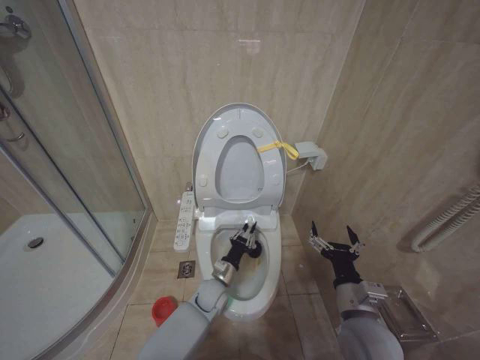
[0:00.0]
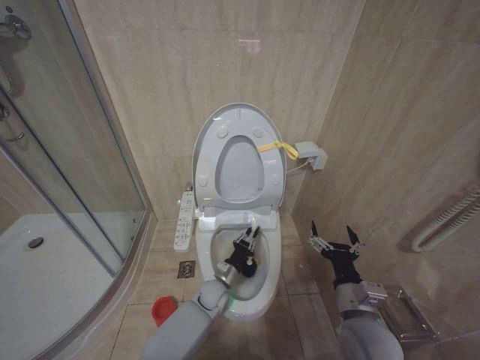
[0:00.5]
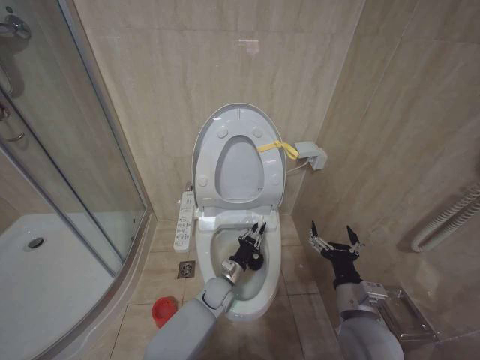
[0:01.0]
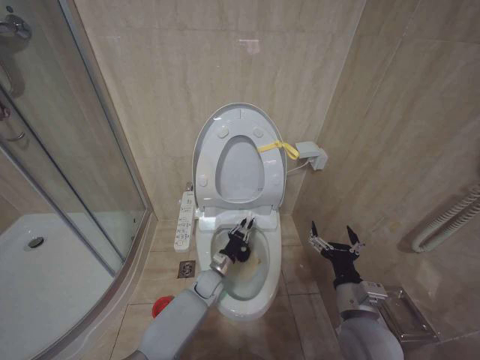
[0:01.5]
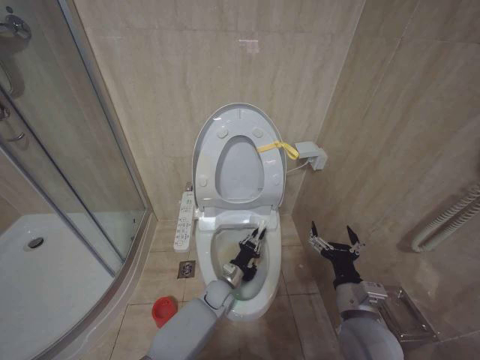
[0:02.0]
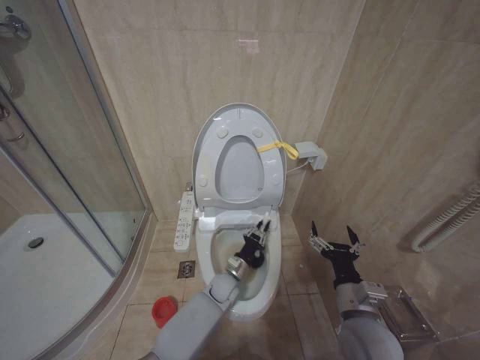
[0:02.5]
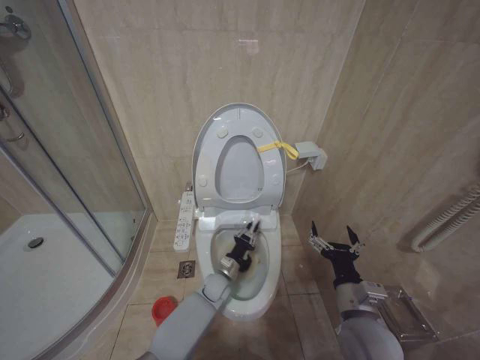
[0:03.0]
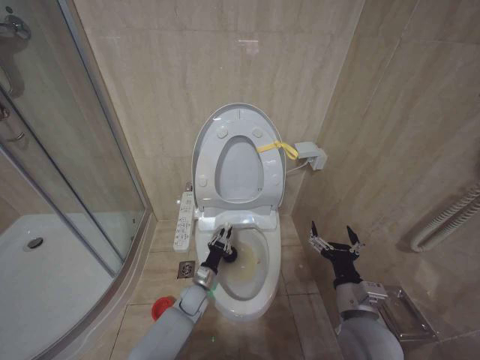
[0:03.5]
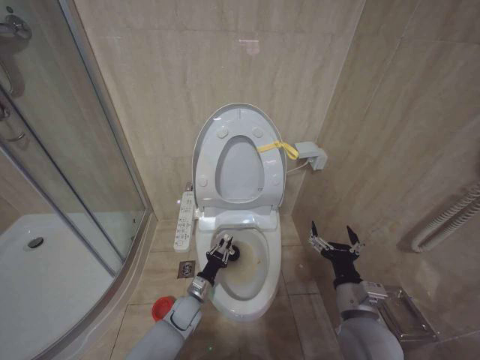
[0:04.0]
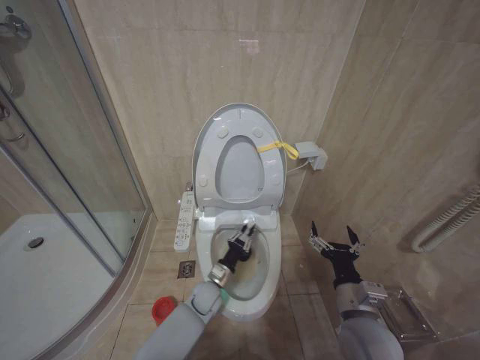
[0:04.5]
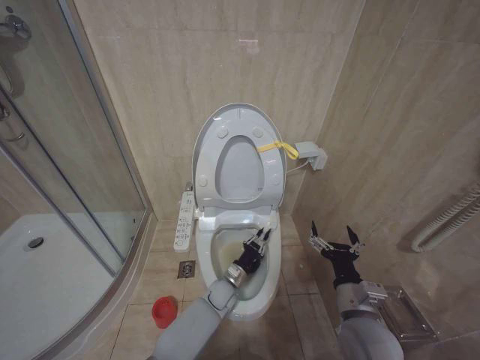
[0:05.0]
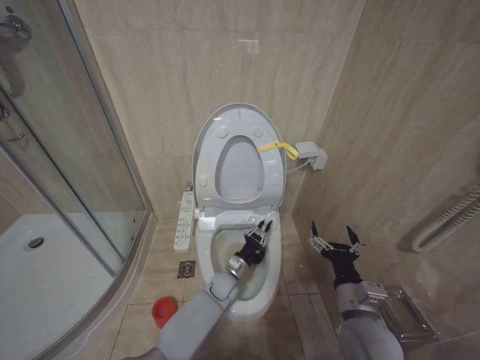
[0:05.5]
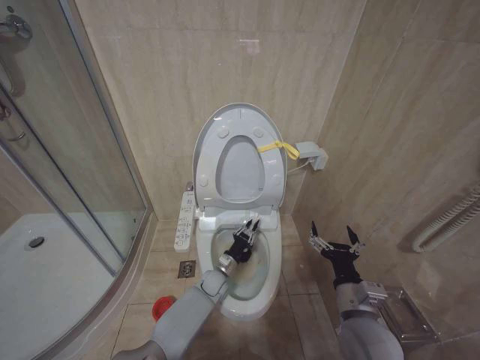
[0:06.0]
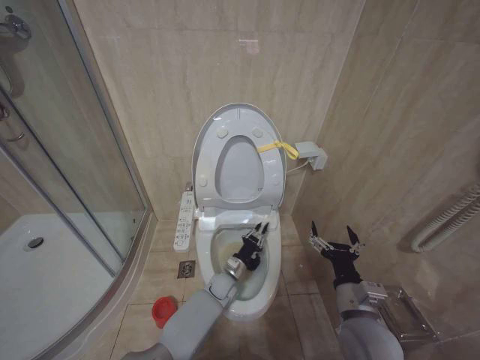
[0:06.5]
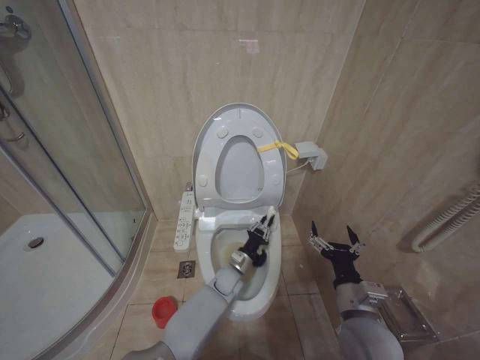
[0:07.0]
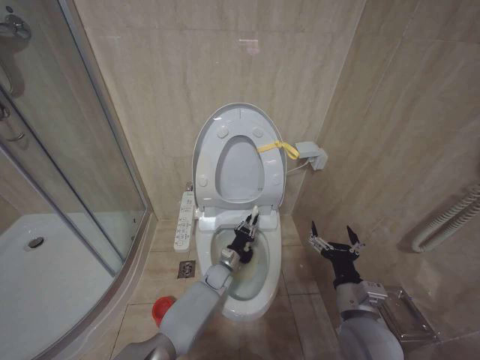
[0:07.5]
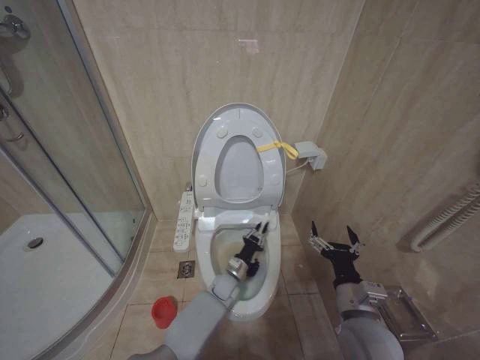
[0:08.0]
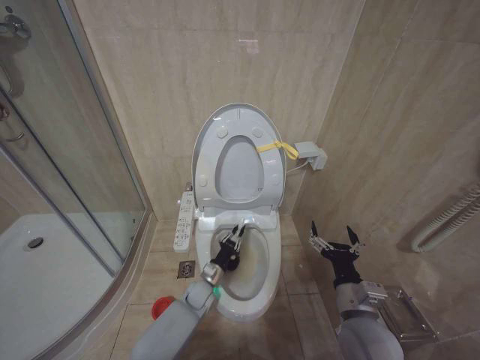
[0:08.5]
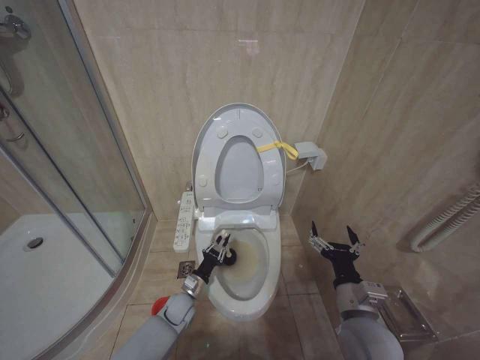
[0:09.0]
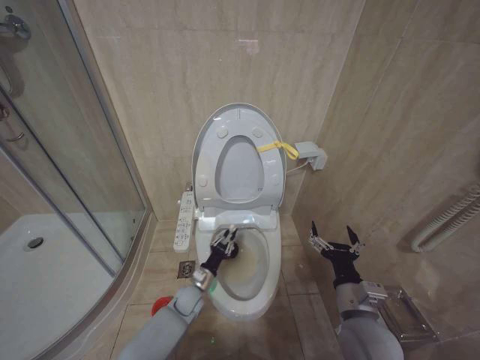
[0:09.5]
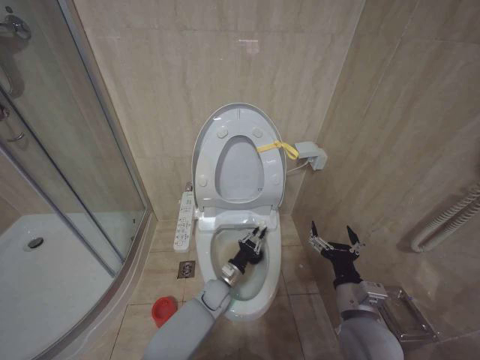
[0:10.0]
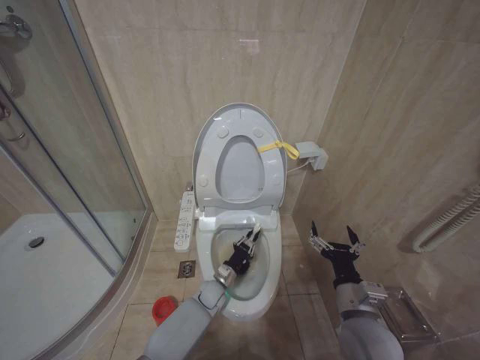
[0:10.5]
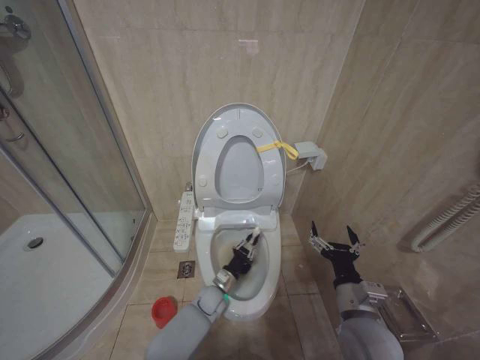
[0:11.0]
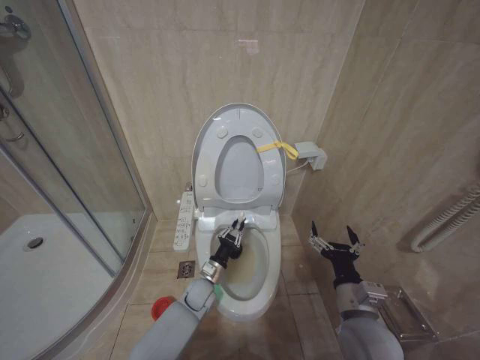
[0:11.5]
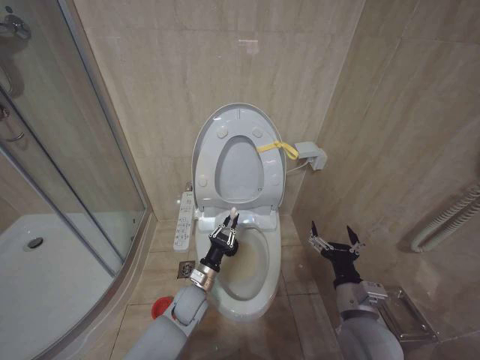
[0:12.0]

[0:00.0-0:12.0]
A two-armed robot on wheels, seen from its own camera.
Task of the whole recording: Open the toilet lid, clean the toilet bowl with a toilet brush, close the toilet lid, and flush.
0:00.0 to 0:02.0: The grippers make only small movements.
0:02.0 to 0:04.0: The left gripper goes about 10 cm to the left.
0:04.0 to 0:06.0: The left gripper heads to the right and forward, covering some 10 cm.
0:06.0 to 0:08.0: The left gripper moves some 5 cm.
0:08.0 to 0:10.0: The left gripper reaches approximately 15 cm to the left, then returns.
0:10.0 to 0:12.0: The left gripper shifts about 10 cm to the left and upward.

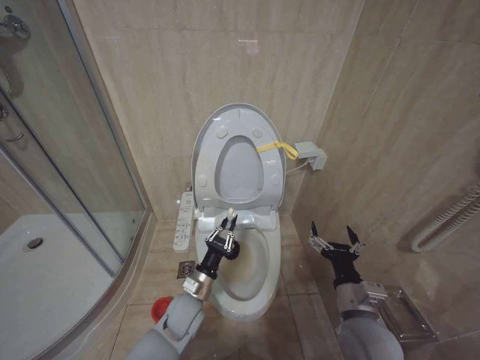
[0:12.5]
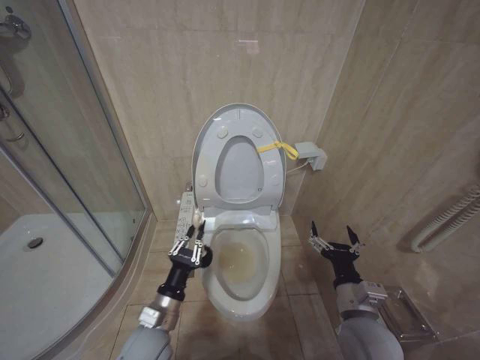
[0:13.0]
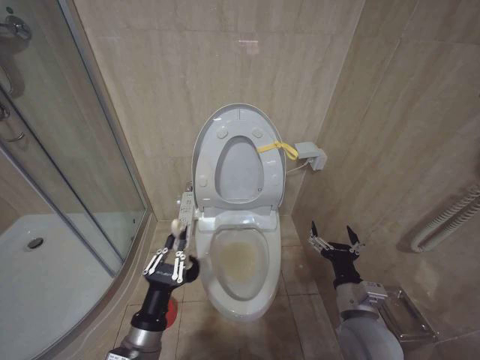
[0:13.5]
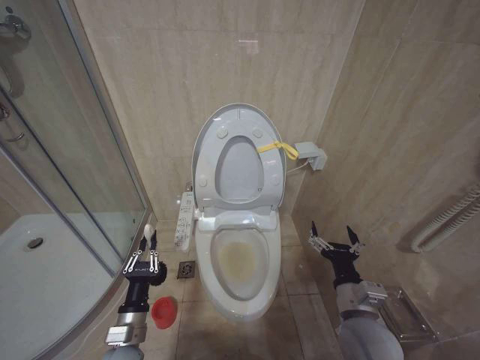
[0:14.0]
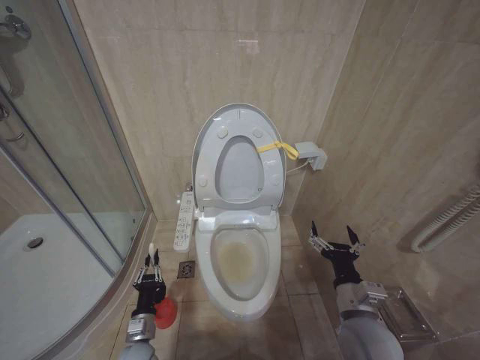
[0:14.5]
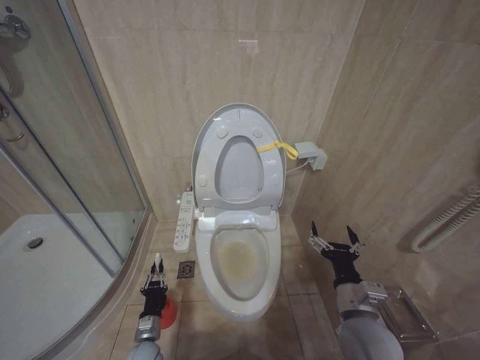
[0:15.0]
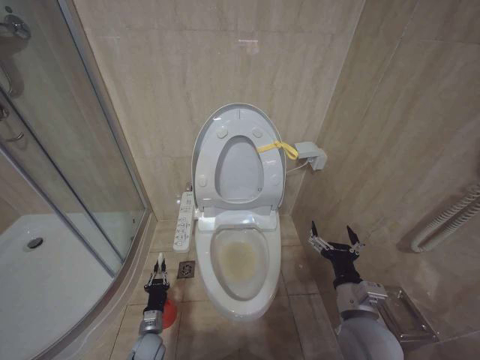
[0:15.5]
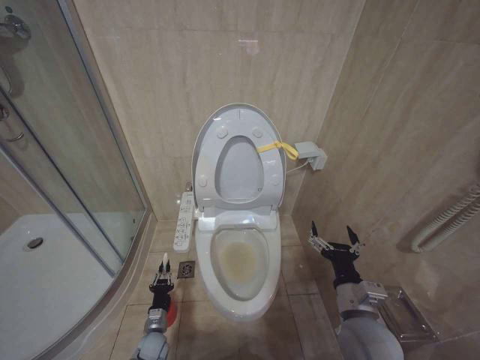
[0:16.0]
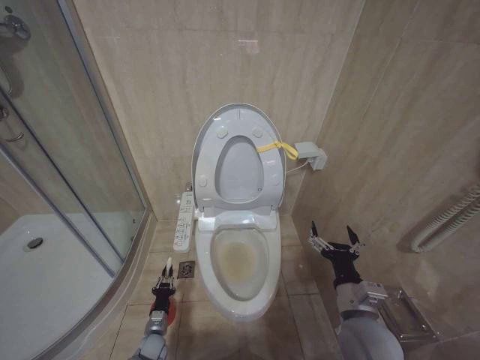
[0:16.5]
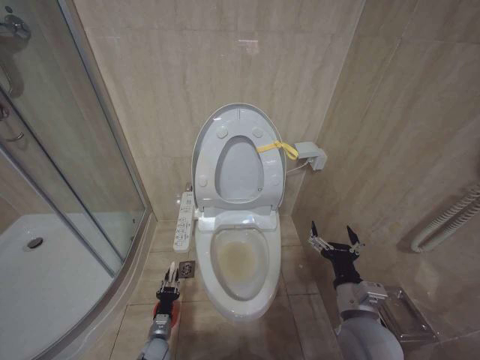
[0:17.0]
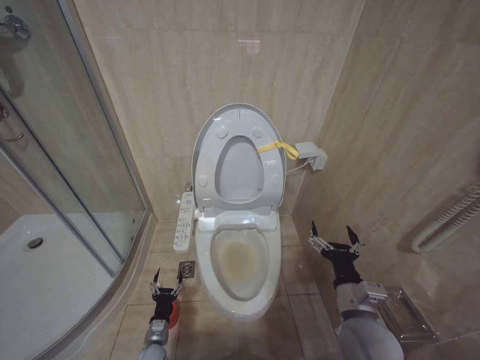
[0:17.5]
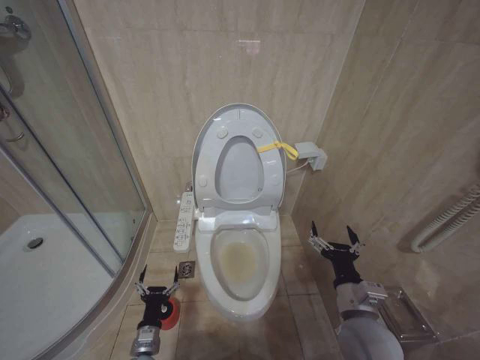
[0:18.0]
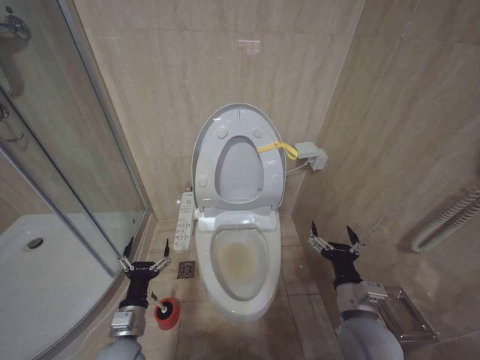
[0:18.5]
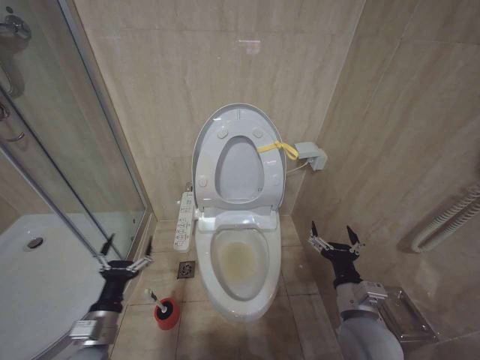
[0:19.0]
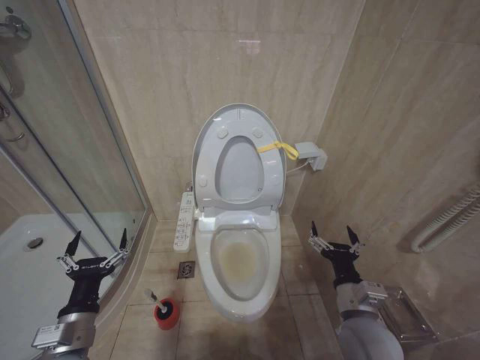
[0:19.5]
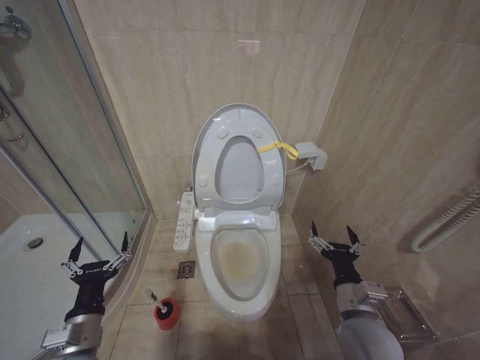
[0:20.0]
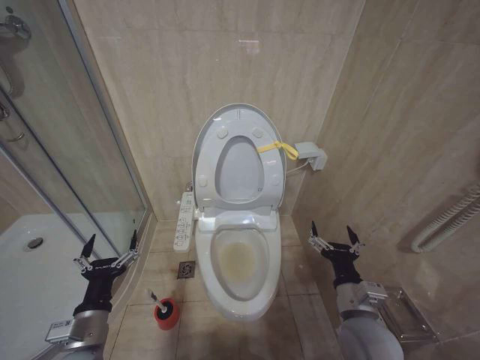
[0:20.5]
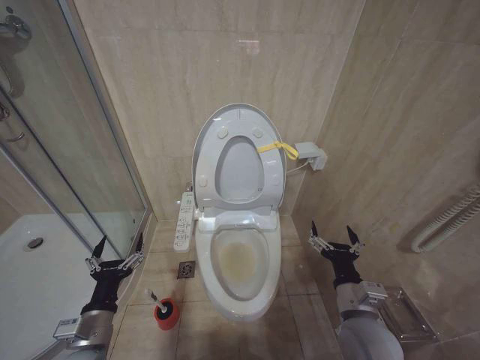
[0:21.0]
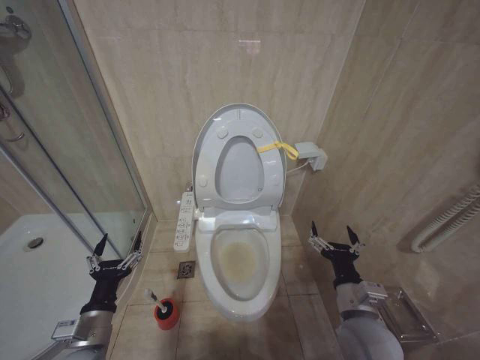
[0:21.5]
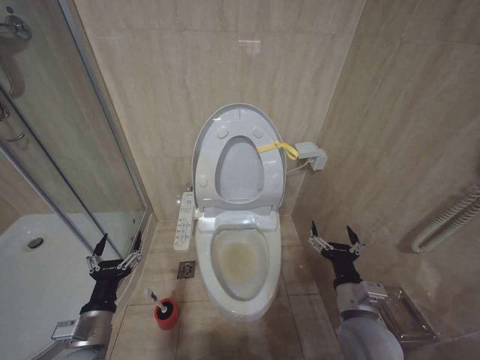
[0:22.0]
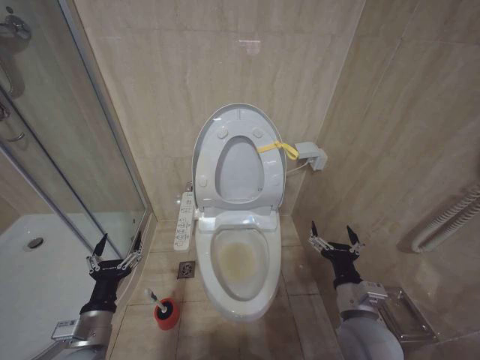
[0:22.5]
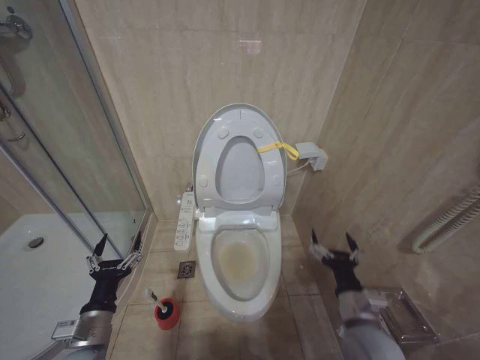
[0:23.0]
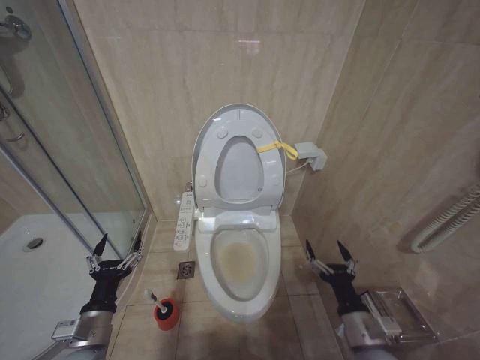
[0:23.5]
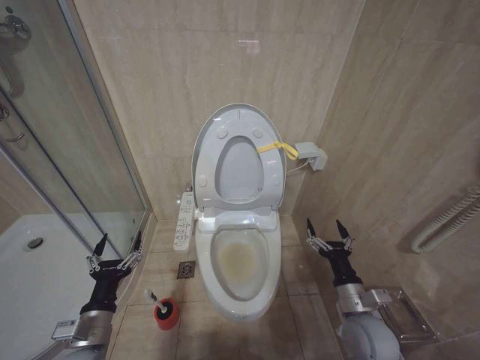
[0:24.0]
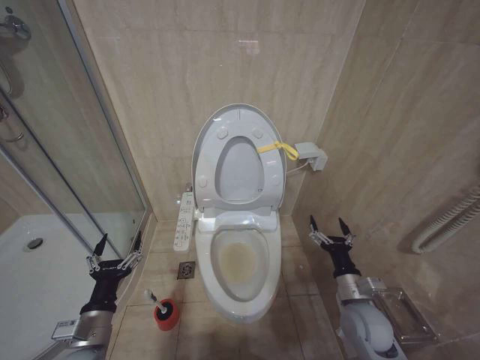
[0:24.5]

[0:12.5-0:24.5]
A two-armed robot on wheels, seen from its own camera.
Task of the whole recording: Open the toilet lid, clean the toilet bowl with a toilet brush, close the toilet lid, and flush.
0:12.5 to 0:14.5: The left gripper goes roughly 15 cm to the left, backward and downward.
0:14.5 to 0:16.5: The left gripper heads downward and forward, covering approximately 15 cm.
0:16.5 to 0:18.5: The left gripper travels upward by roughly 25 cm, and opens.
0:18.5 to 0:20.5: The left gripper shifts about 10 cm upward.
0:20.5 to 0:22.5: The grippers move only a little.
0:22.5 to 0:24.5: The right gripper moves downward and to the right, about 10 cm.

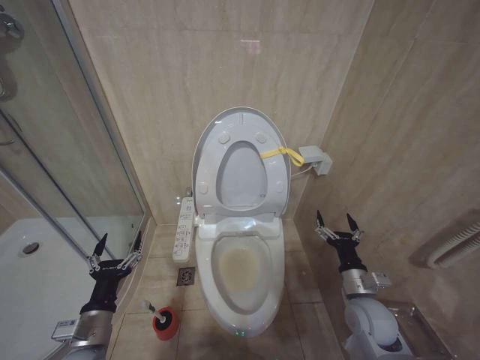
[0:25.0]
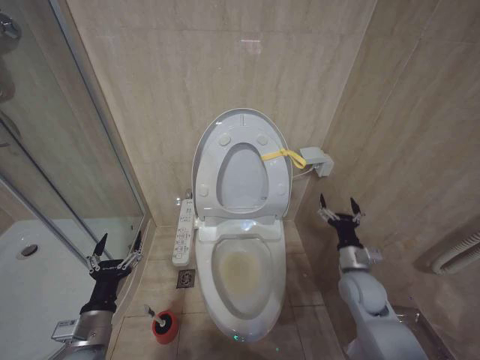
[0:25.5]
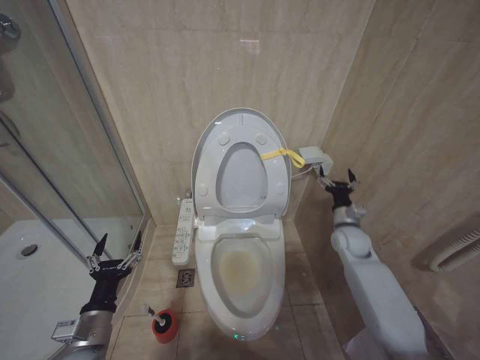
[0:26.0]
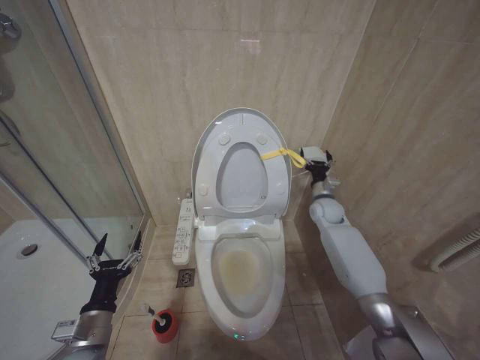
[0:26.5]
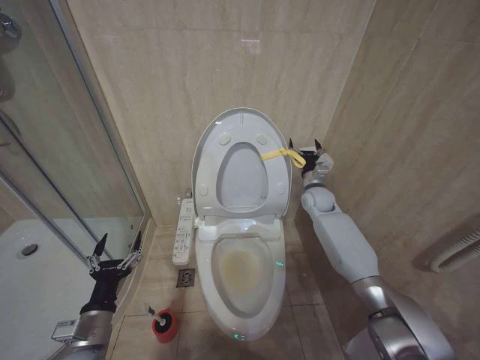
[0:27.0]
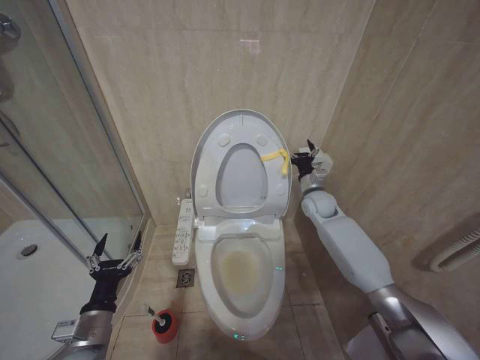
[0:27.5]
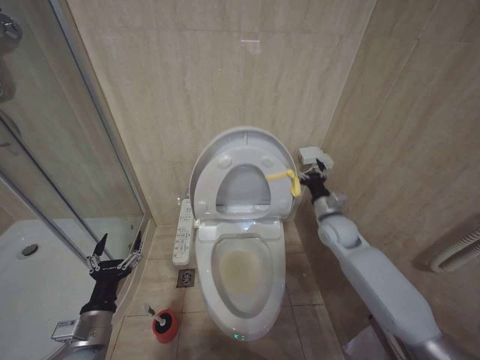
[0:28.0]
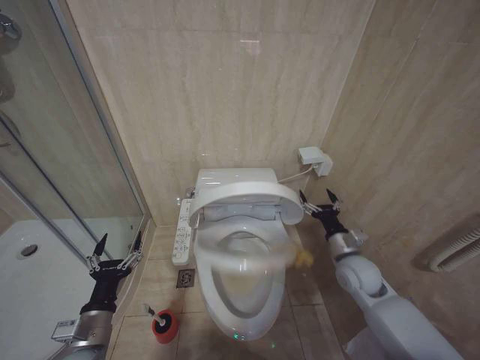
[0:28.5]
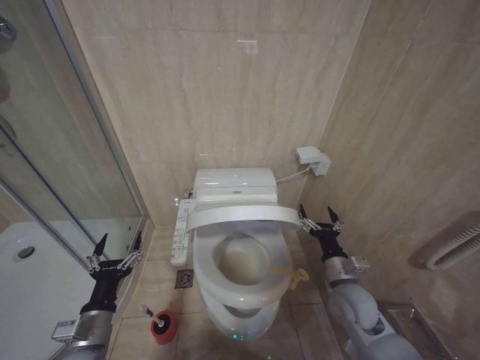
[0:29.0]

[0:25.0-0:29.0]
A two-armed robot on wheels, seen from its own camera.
Task of the whole recording: Open the toilet lid, clean the toilet bowl with a toilet brush, close the toilet lid, and flush.
0:25.0 to 0:27.0: The right gripper goes some 30 cm forward.
0:27.0 to 0:29.0: The right gripper shifts approximately 25 cm backward.
